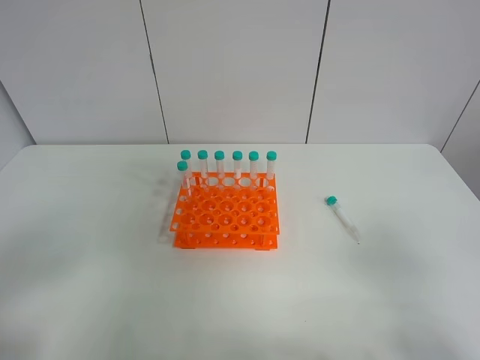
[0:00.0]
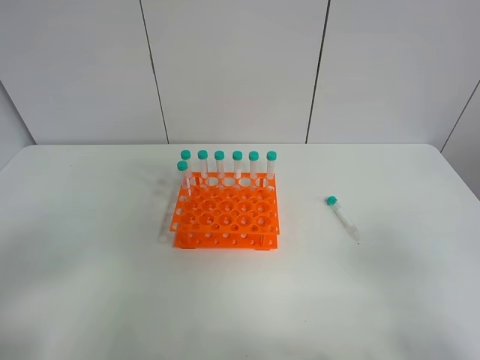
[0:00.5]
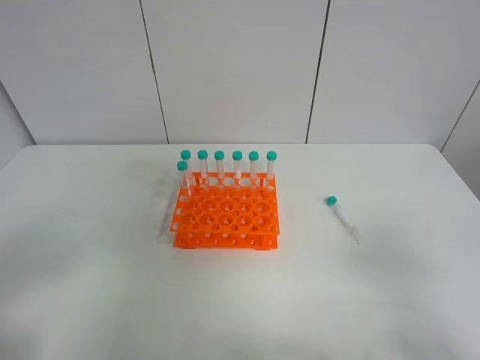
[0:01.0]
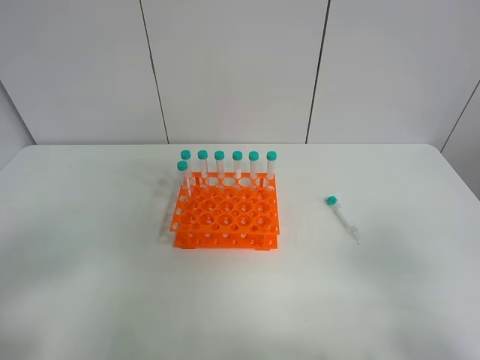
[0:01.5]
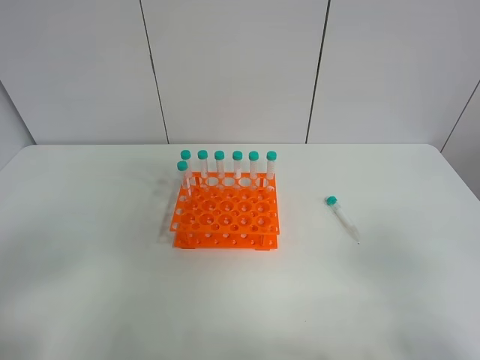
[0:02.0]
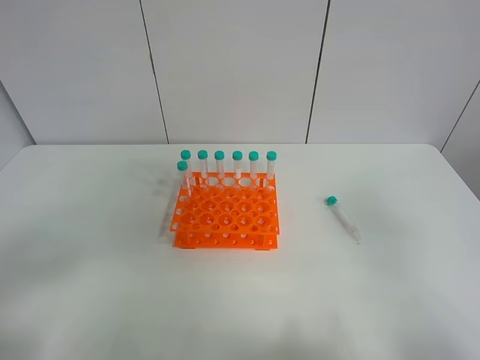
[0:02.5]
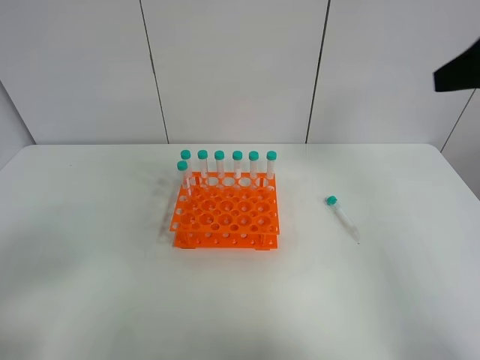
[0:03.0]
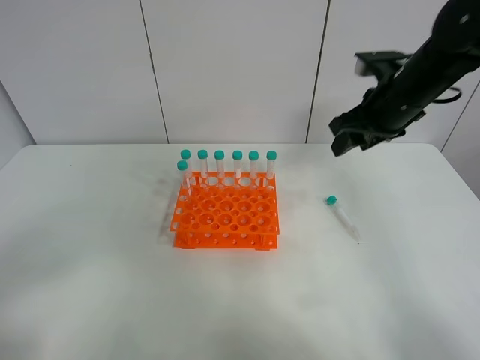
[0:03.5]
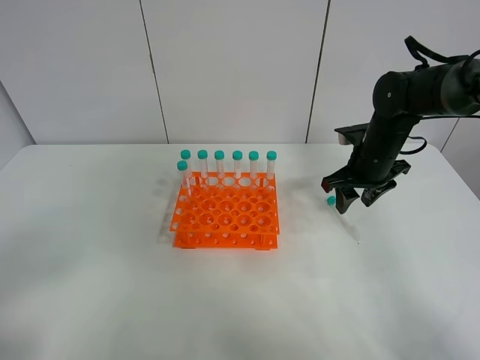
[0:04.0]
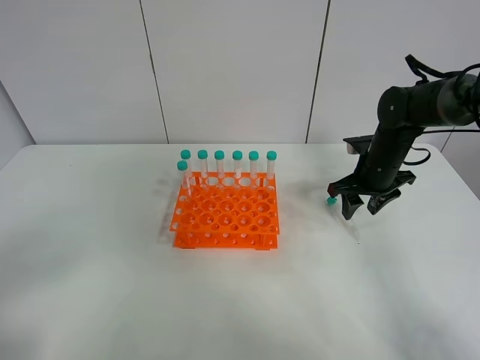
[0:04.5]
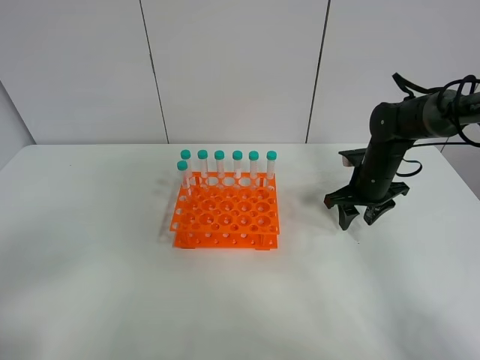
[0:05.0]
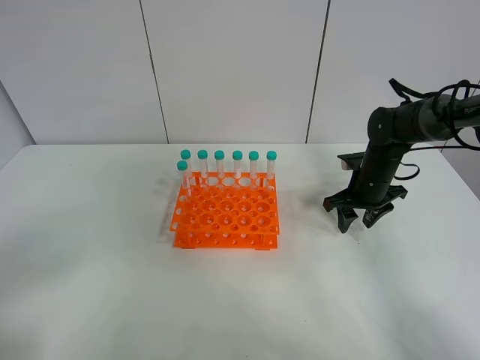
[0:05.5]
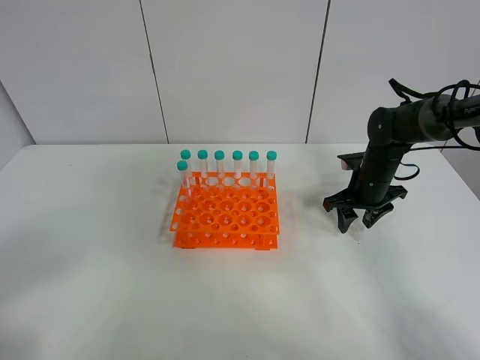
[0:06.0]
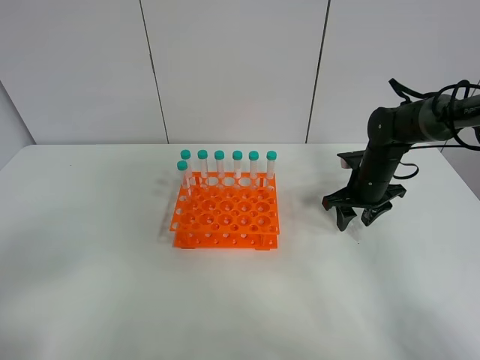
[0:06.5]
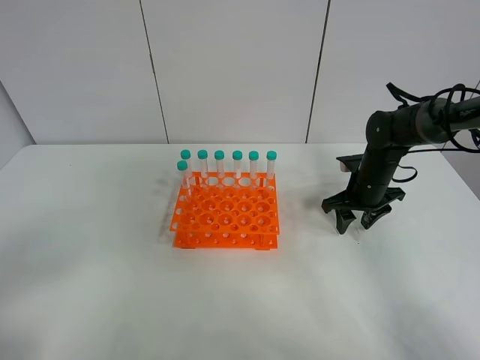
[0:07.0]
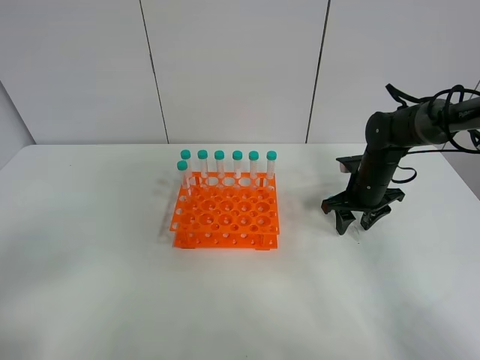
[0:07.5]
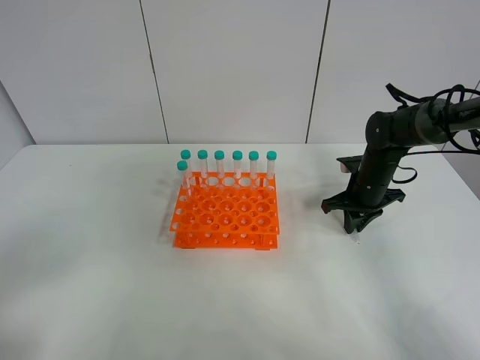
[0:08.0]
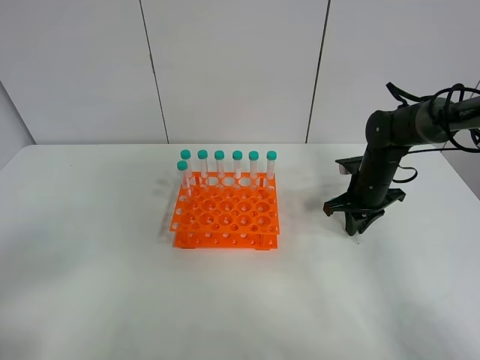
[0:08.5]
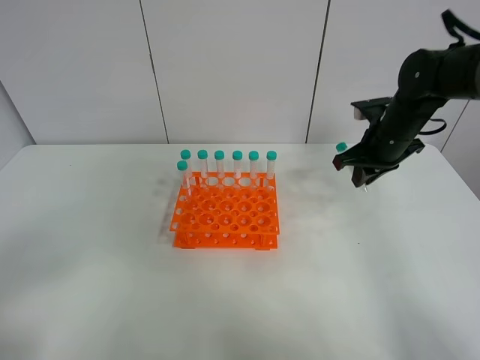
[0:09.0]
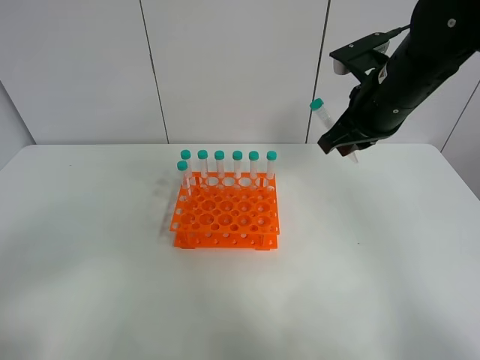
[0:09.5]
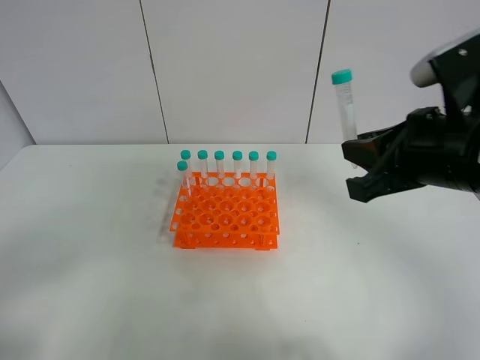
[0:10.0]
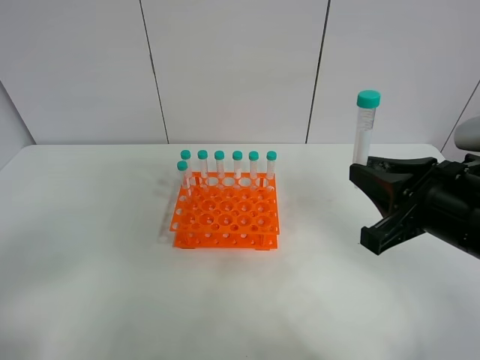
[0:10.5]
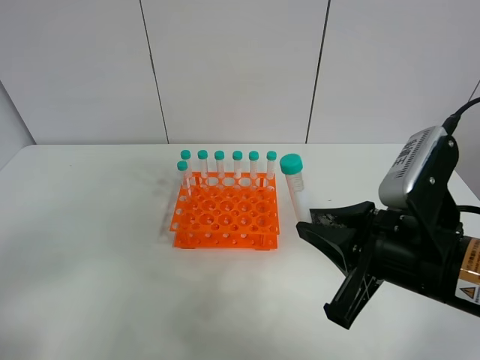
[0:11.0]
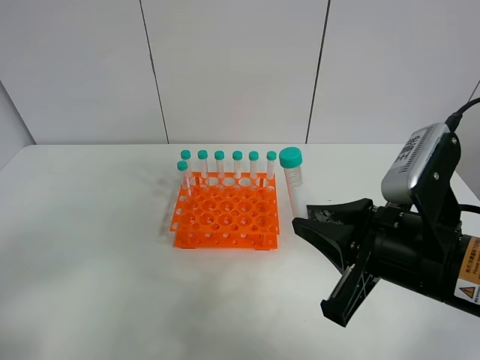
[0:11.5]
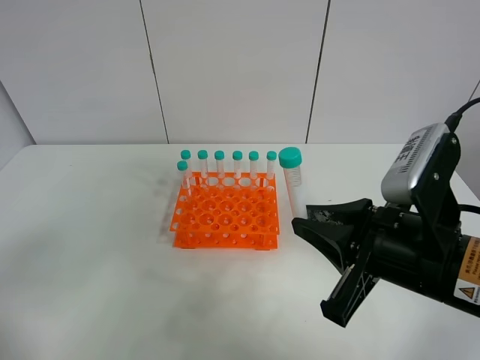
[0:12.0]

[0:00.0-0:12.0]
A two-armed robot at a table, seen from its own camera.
Task of the whole recording: Put the test tube on the table back onto the test tube rack.
Step, 0:00.0 to 0:08.0: Pick up the test tube with the right gripper.
0:00.0 to 0:02.0: Both grippers stay about where they are.
0:02.0 to 0:04.0: The right gripper shifts about 40 cm forward.
0:04.0 to 0:06.0: The right gripper heads downward, covering about 5 cm.
0:06.0 to 0:08.0: The right gripper closes its fingers.
0:08.0 to 0:10.0: The right gripper travels backward and upward by some 30 cm.
0:10.0 to 0:12.0: The right gripper heads downward and backward, covering about 10 cm.

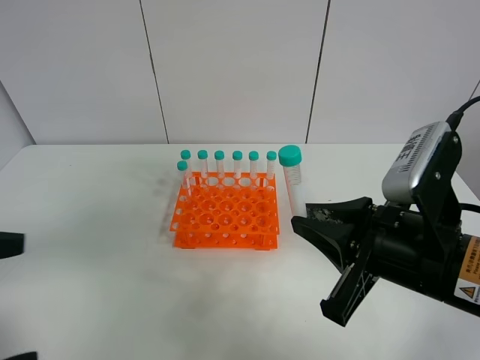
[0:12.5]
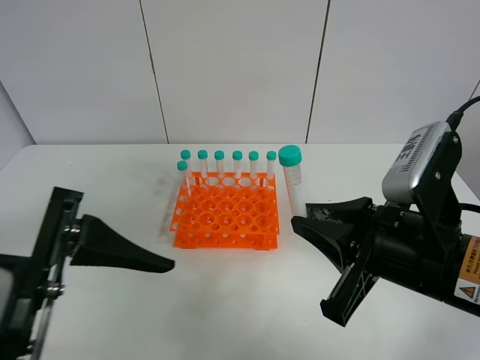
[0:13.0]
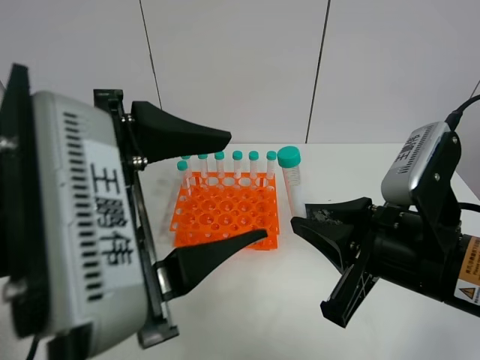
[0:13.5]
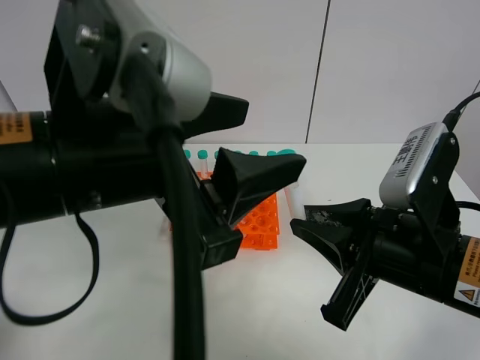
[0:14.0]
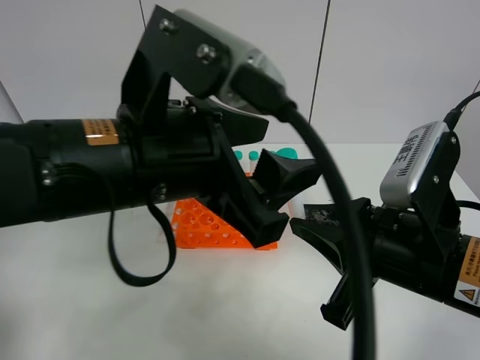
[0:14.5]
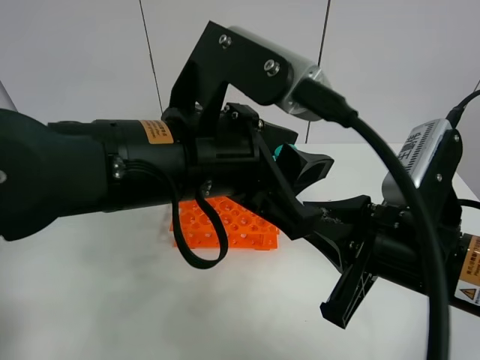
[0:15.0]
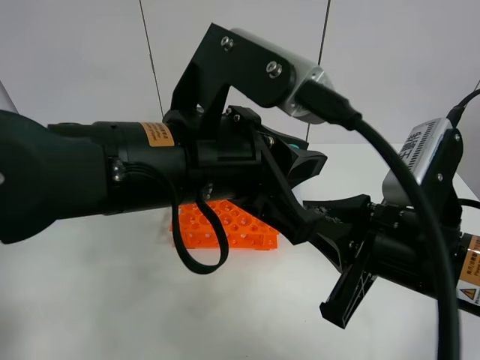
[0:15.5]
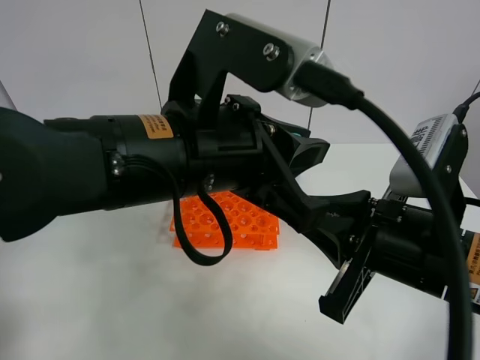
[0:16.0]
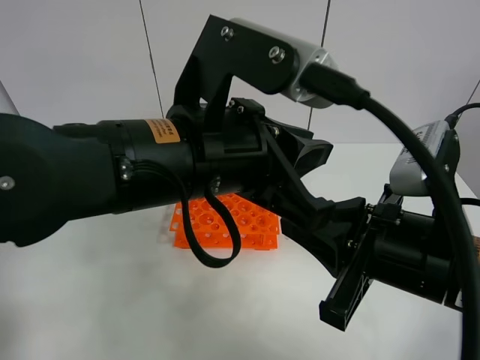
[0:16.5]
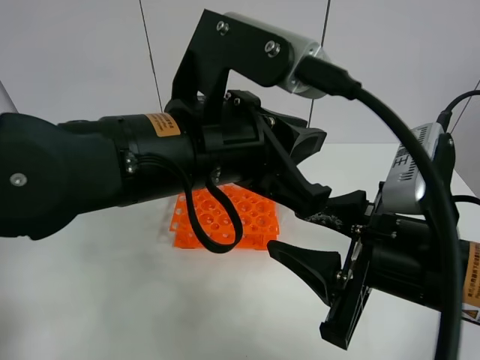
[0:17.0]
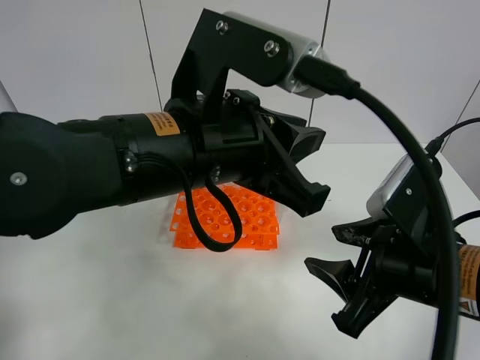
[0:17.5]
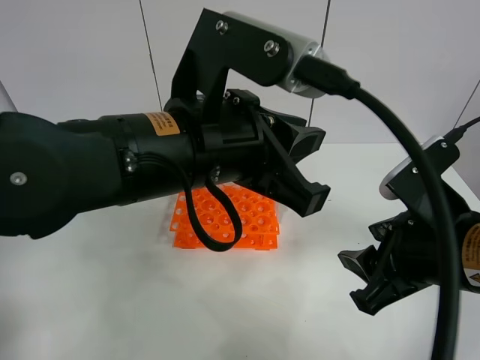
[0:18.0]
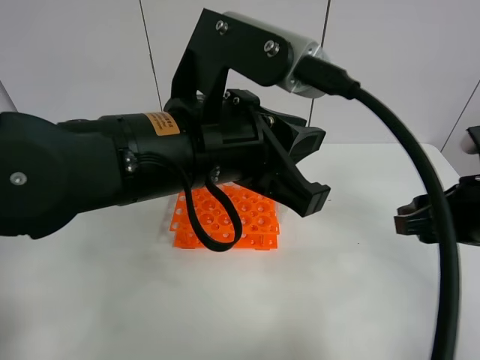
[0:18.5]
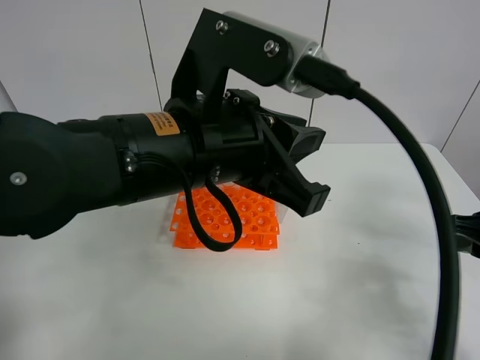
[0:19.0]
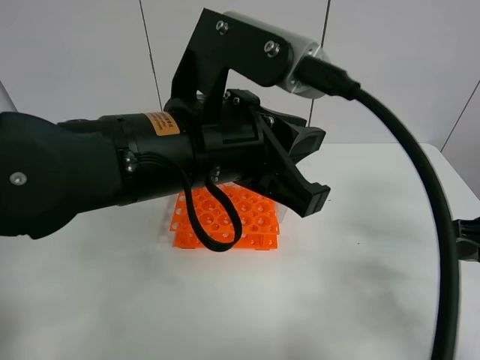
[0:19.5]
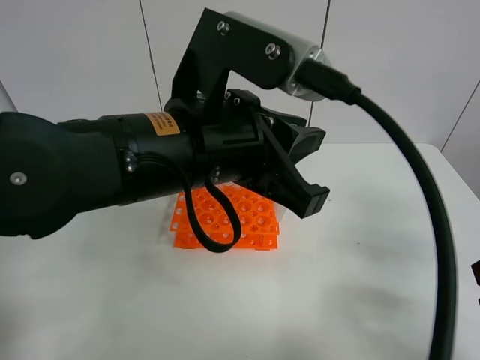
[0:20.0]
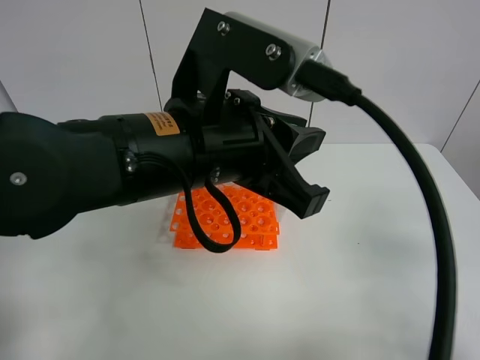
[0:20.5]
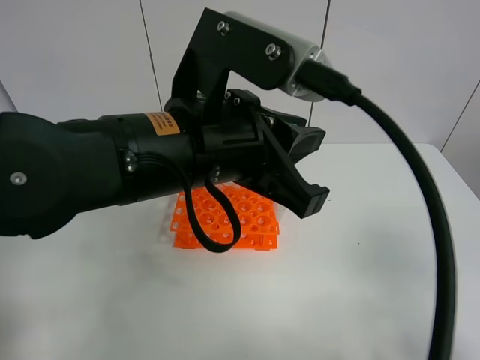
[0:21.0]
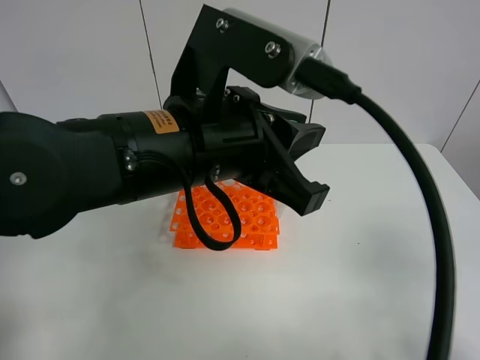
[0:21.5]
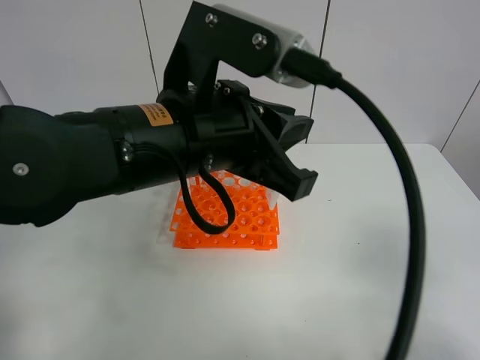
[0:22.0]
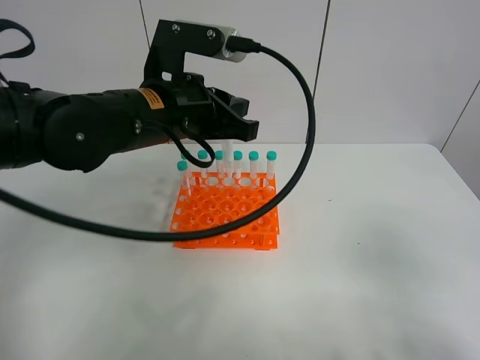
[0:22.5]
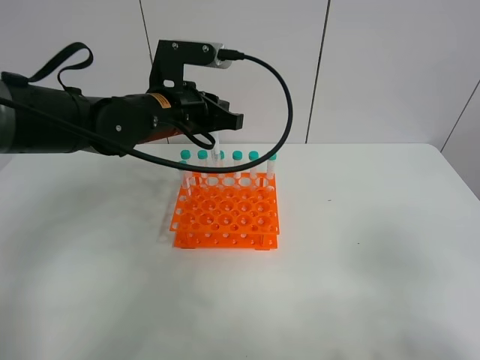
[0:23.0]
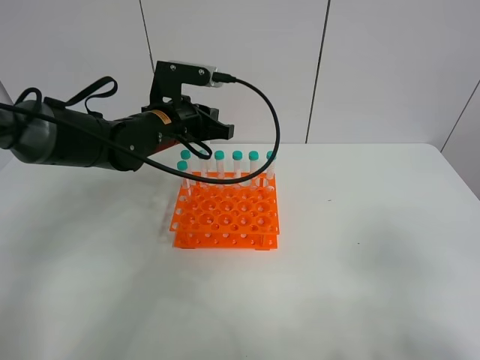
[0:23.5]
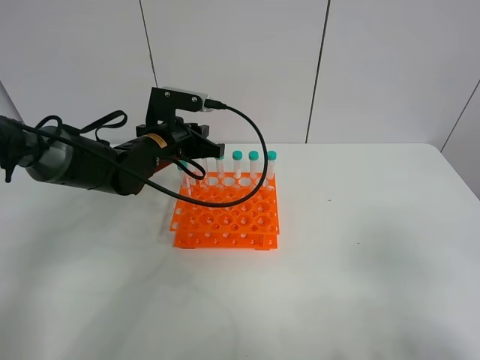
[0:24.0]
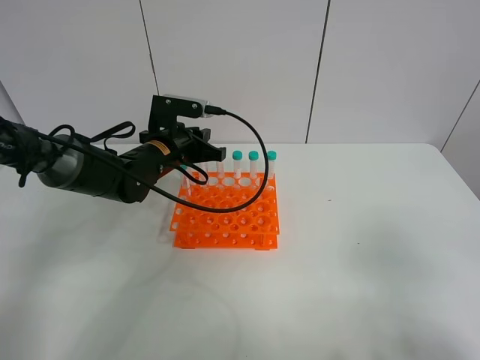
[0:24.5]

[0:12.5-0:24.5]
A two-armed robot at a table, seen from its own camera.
Task of the whole recording: Put the test tube on the table back onto the test tube rack.
Step, 0:12.5 to 0:17.0: Move the test tube from the right gripper to the left gripper.
0:12.5 to 0:14.5: The left gripper goes some 20 cm to the right and forward.
0:14.5 to 0:16.5: The left gripper closes its fingers.
0:16.5 to 0:18.5: The right gripper goes about 10 cm to the right and forward, and opens its fingers.
0:18.5 to 0:20.5: The right gripper travels backward by roughly 15 cm.
0:20.5 to 0:22.5: The left gripper heads forward and to the left, covering approximately 10 cm.
0:22.5 to 0:24.5: The left gripper goes about 15 cm downward and forward.

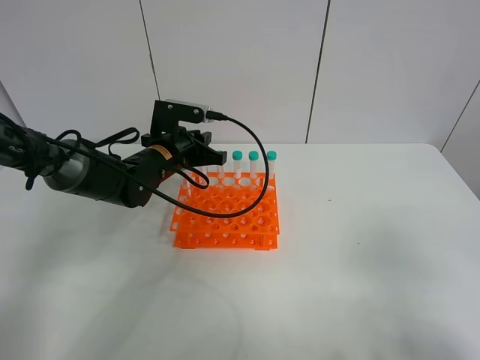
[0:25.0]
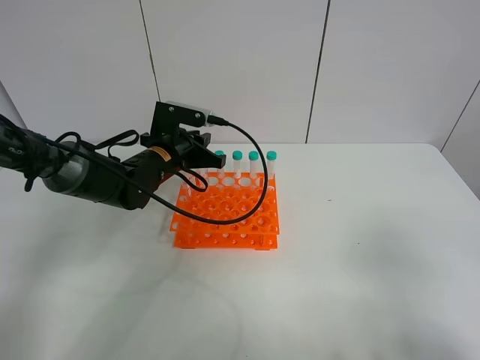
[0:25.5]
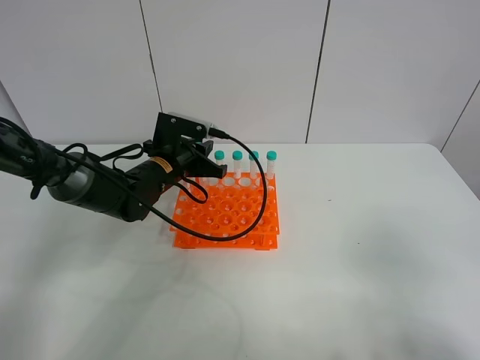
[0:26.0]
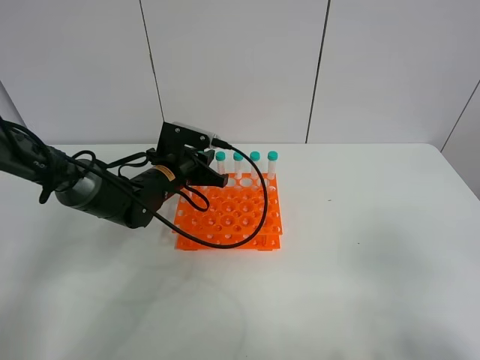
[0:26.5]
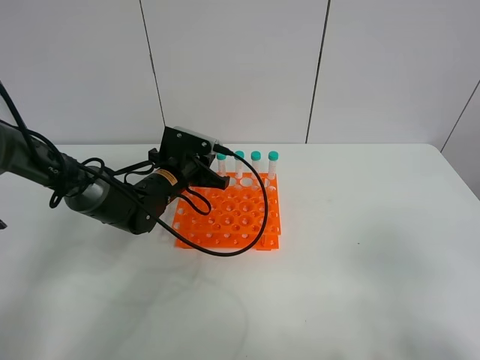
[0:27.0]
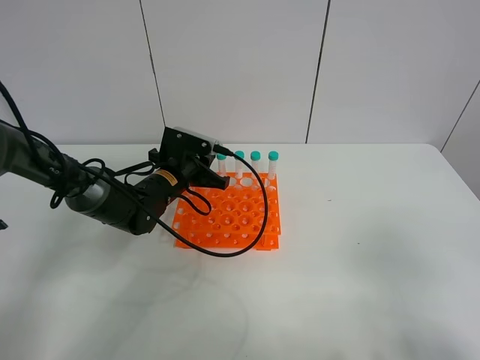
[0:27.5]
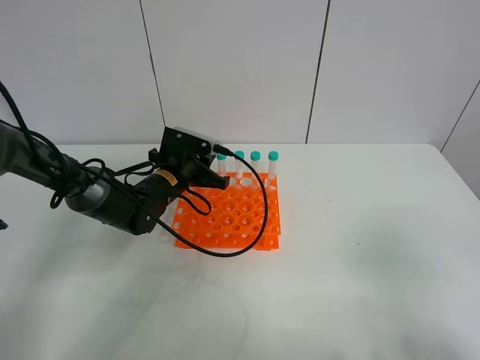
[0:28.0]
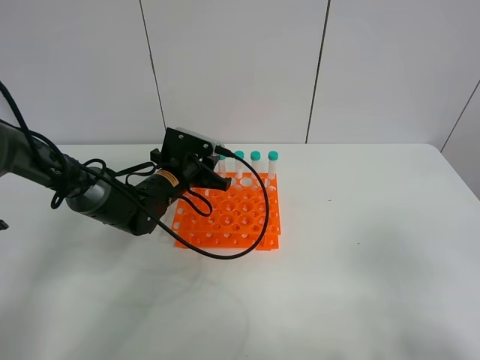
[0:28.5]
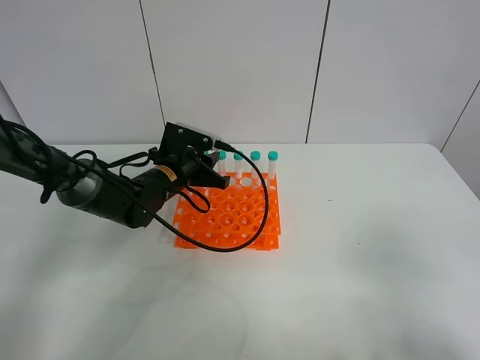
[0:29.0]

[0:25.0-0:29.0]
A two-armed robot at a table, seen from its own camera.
Task of the whole recording: Put the test tube on the table back onto the test tube rack.
Step, 0:25.0 to 0:28.5: Place the test tube on the test tube rack with the left gripper.
0:25.0 to 0:29.0: The grippers stay close to where they were, moving slightly.
